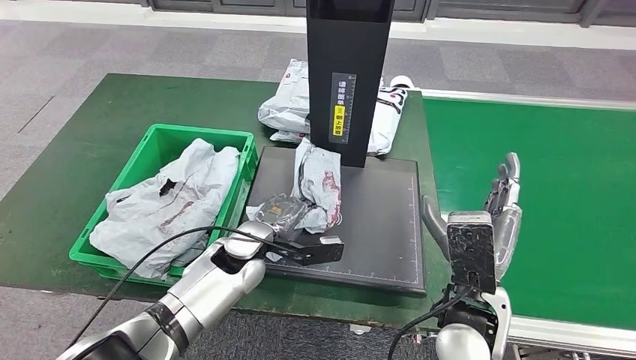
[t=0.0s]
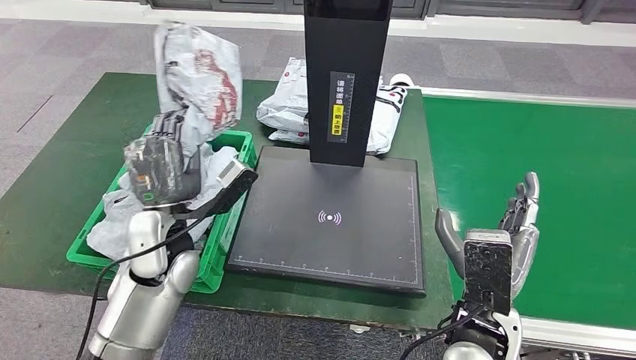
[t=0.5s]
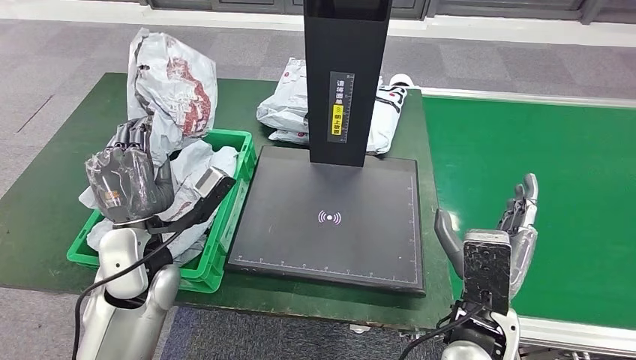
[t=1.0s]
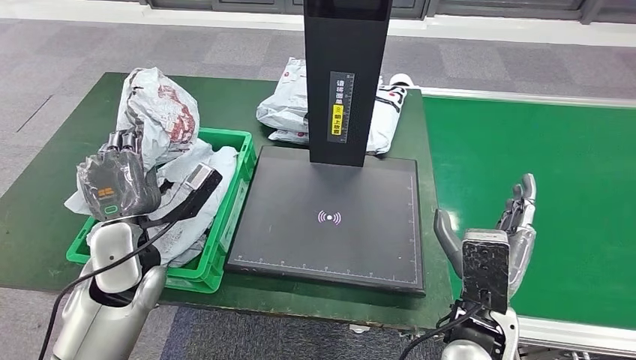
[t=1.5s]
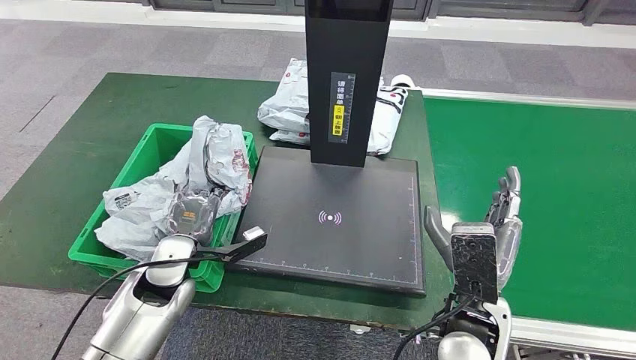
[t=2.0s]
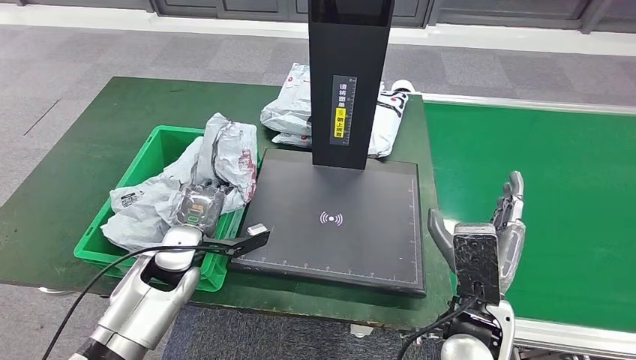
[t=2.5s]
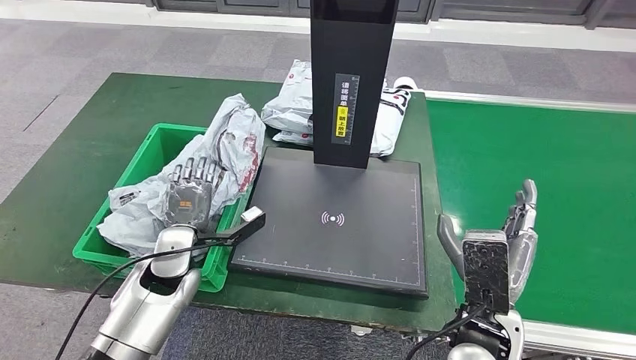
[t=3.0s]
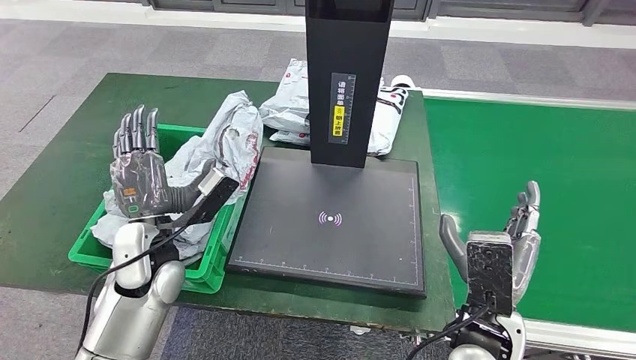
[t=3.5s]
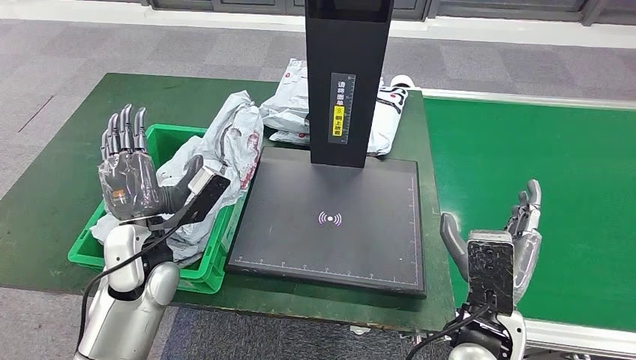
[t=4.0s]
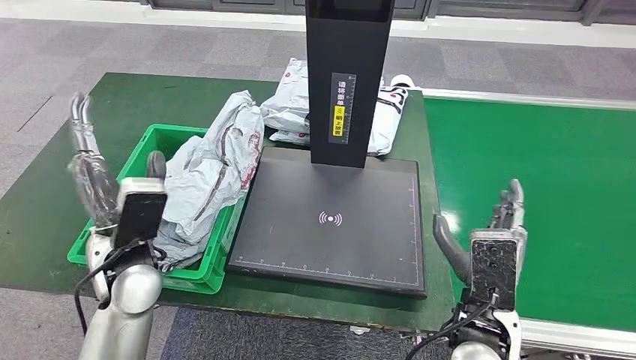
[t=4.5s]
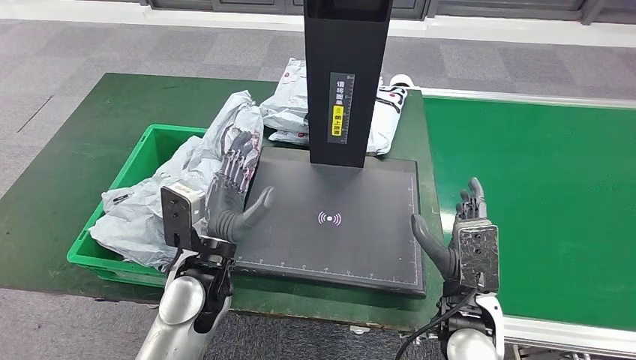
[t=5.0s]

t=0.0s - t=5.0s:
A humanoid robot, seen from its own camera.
Step, t=1.5s - t=5.0s: Place the parcel into the delivery box.
